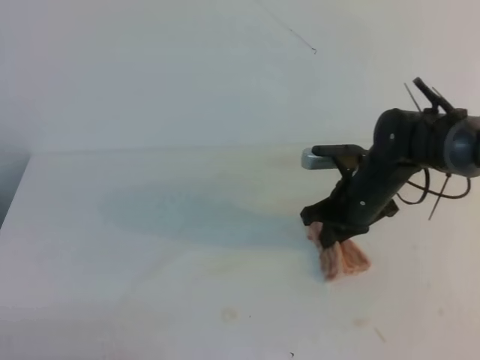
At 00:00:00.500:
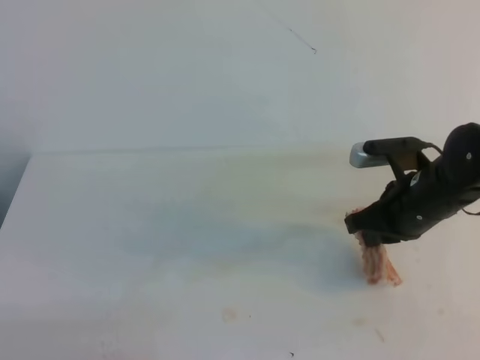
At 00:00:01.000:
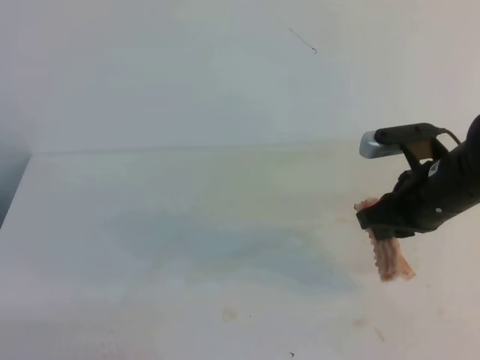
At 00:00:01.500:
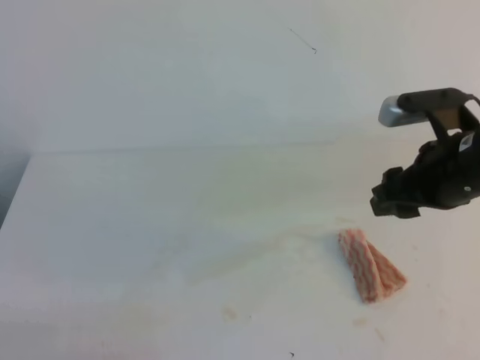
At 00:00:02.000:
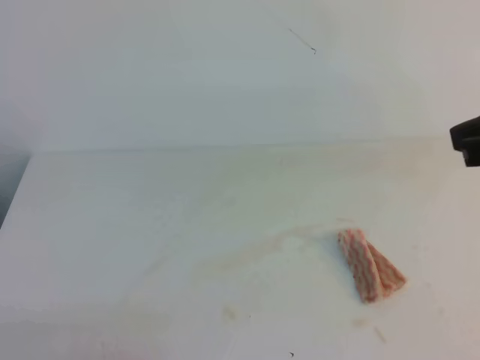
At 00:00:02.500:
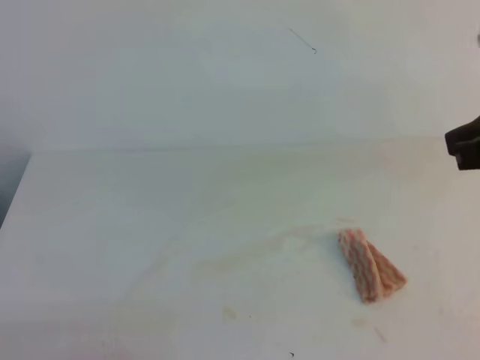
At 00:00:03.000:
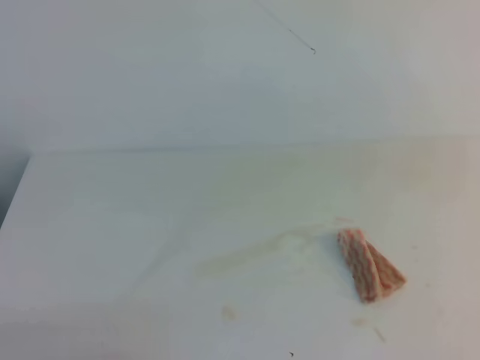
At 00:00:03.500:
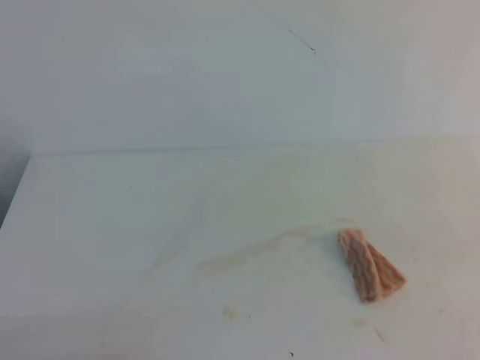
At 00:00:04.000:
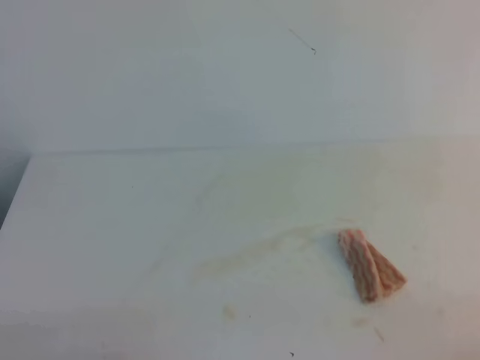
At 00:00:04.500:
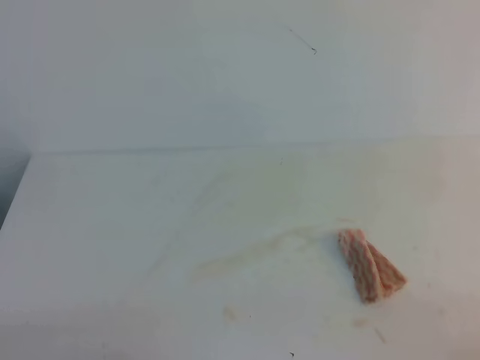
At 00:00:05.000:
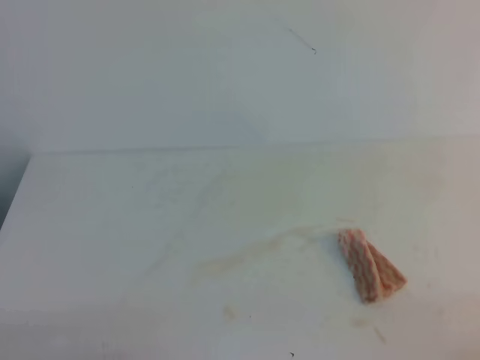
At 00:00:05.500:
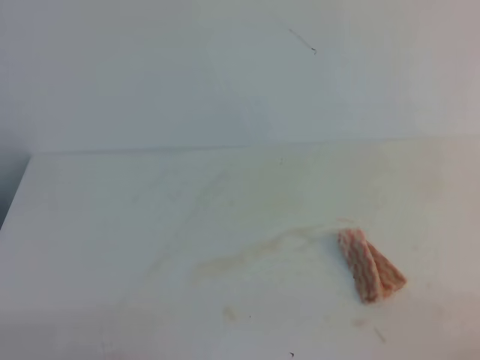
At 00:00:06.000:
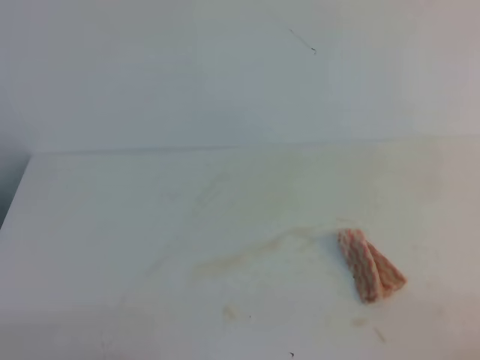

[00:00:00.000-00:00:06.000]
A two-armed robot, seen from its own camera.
00:00:00.000 to 00:00:02.000: The right gripper goes roughly 30 cm upward, backward and to the right, and opens, then closes again.
00:00:02.000 to 00:00:04.000: The right gripper heads backward, downward and to the right, covering about 25 cm.

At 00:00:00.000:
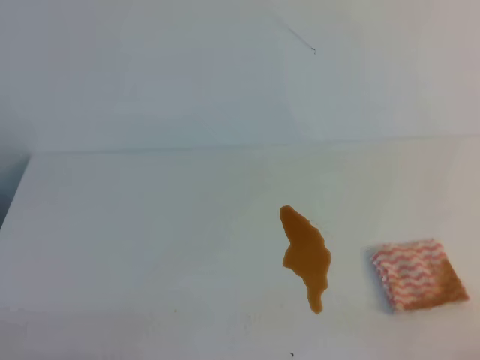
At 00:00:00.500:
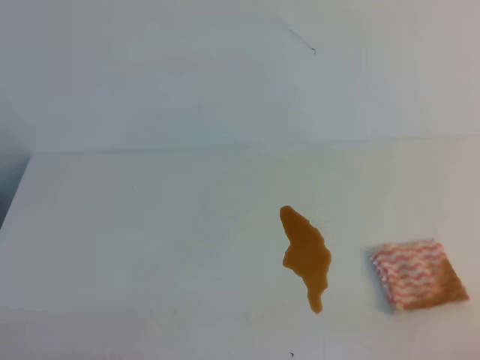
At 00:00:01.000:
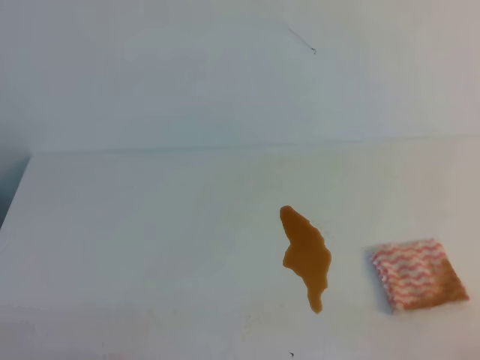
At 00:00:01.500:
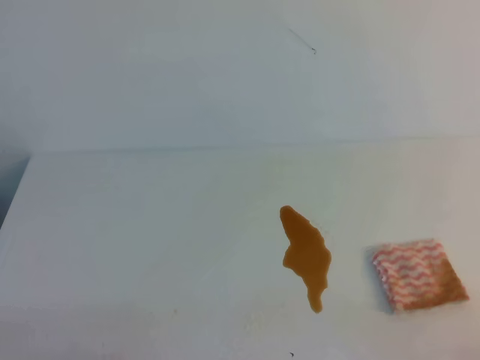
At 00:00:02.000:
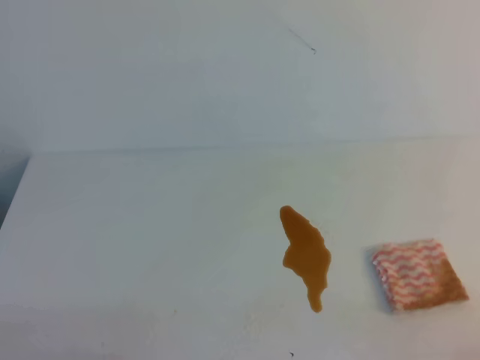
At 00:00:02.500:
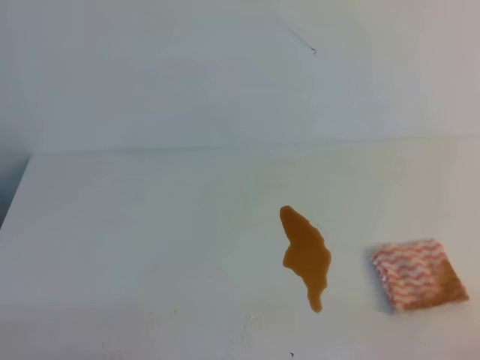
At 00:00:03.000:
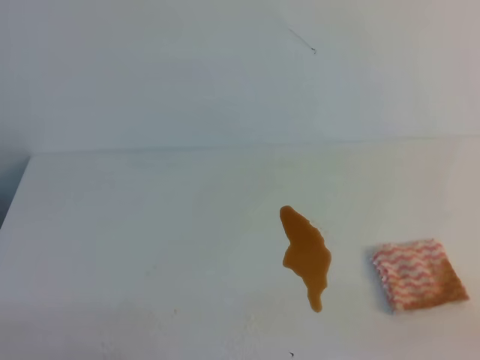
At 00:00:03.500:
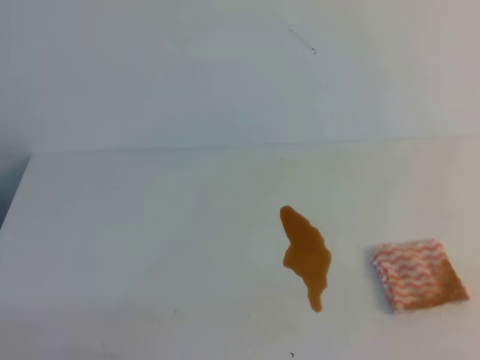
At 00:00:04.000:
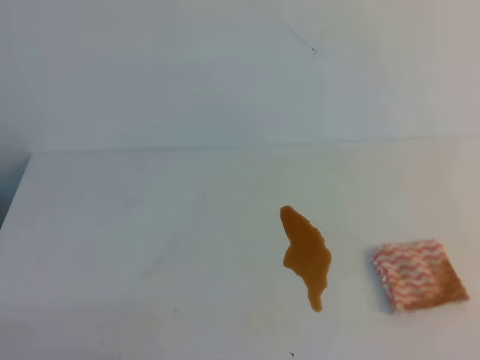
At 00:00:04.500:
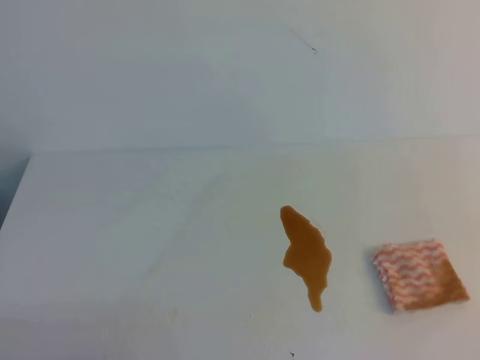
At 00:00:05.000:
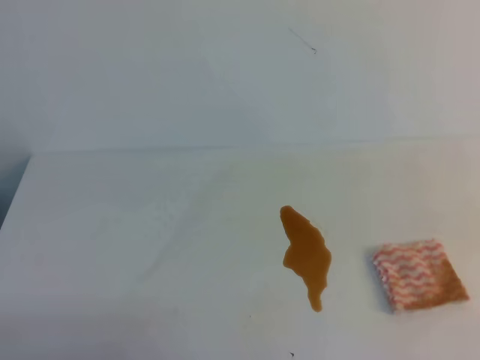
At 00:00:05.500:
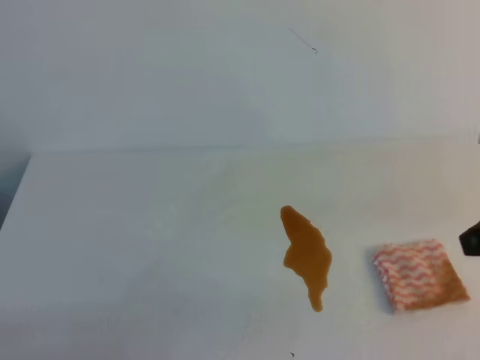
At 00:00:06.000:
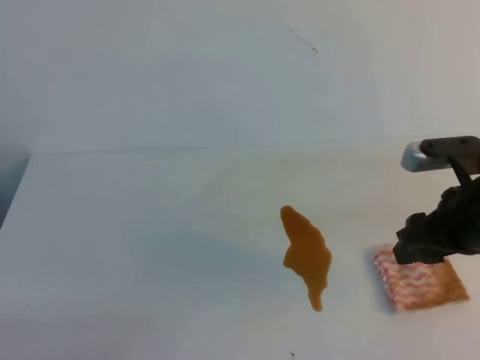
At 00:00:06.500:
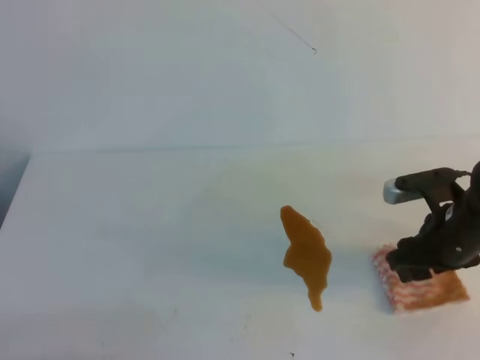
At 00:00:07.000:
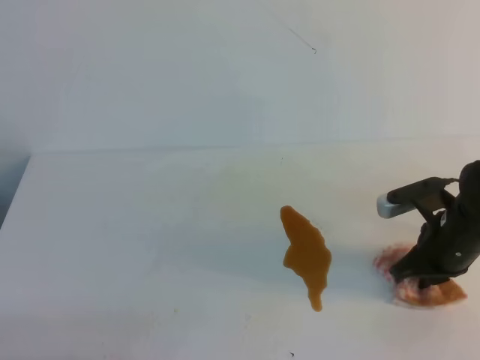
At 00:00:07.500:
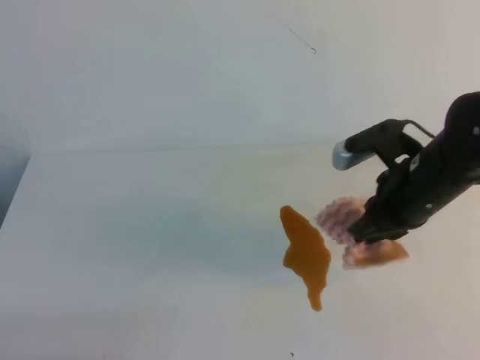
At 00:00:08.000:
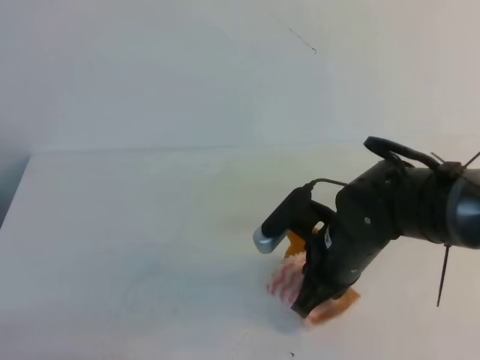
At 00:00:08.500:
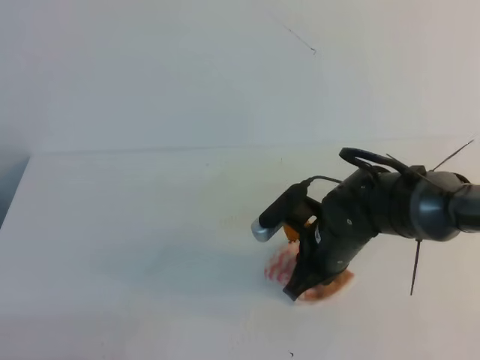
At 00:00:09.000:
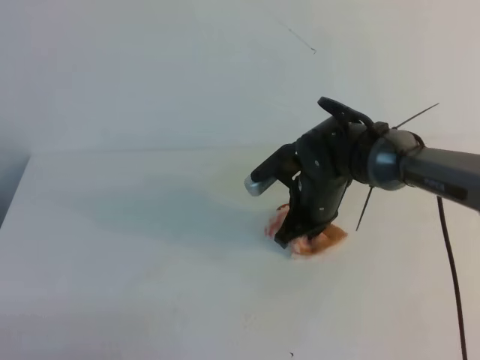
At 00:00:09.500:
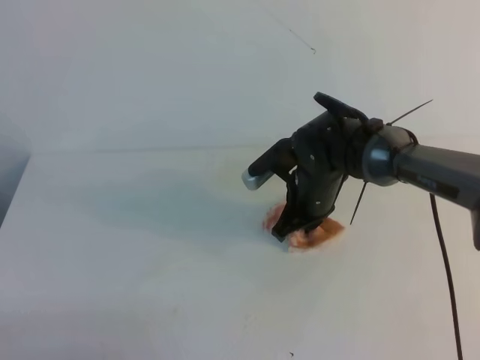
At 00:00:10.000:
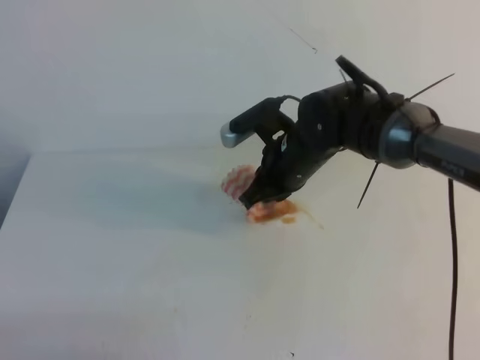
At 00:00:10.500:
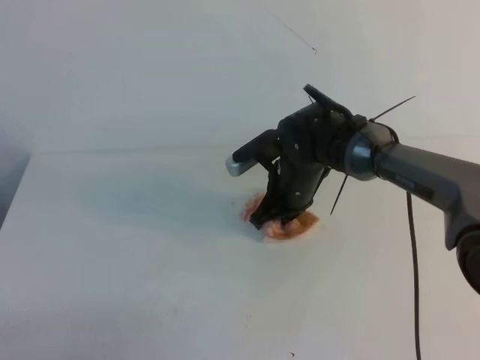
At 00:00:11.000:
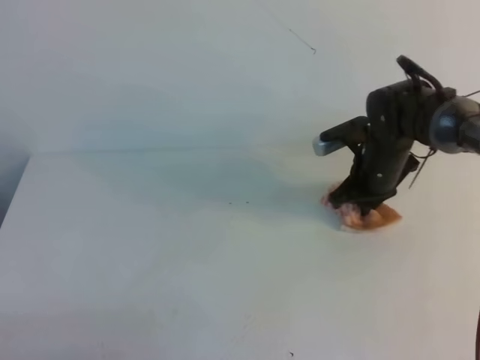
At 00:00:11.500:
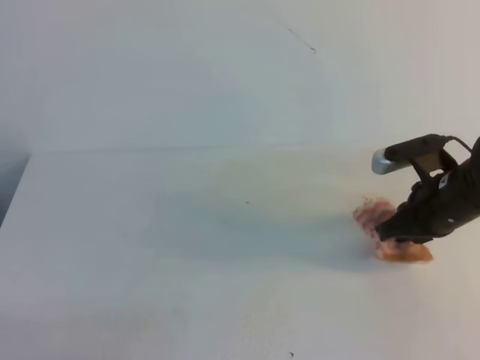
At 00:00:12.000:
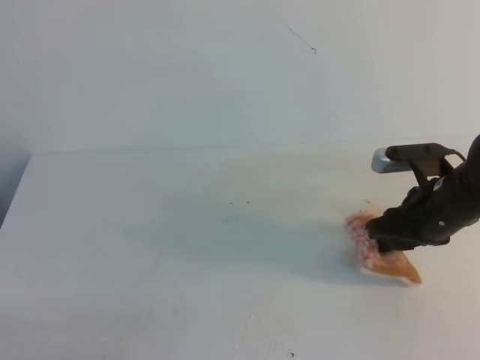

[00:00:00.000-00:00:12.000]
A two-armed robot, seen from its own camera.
00:00:00.000 to 00:00:02.000: The two grippers keep their place.
00:00:04.000 to 00:00:06.000: The right gripper is displaced forward by some 25 cm, and opens.
00:00:06.000 to 00:00:08.000: The right gripper is displaced to the left and downward by some 15 cm, and closes its fingers.
00:00:08.000 to 00:00:10.000: The right gripper moves forward, some 10 cm.
00:00:10.000 to 00:00:12.000: The right gripper moves to the right and backward, approximately 15 cm, and opens up.

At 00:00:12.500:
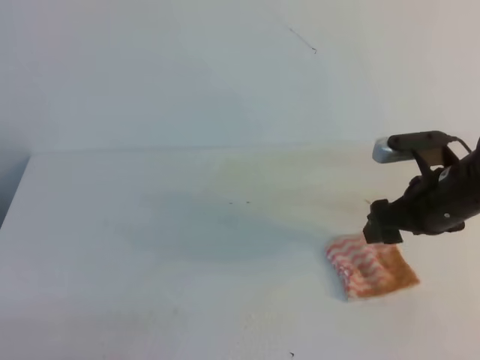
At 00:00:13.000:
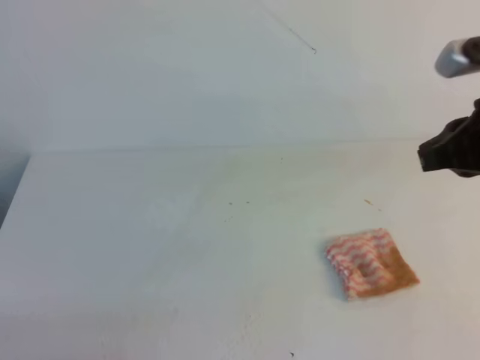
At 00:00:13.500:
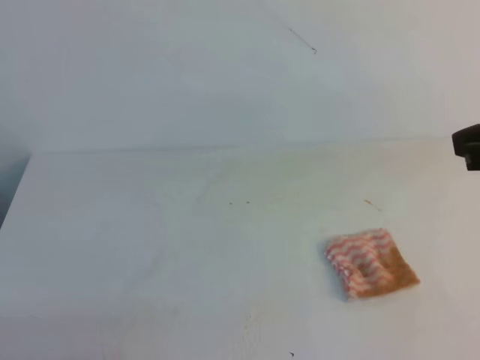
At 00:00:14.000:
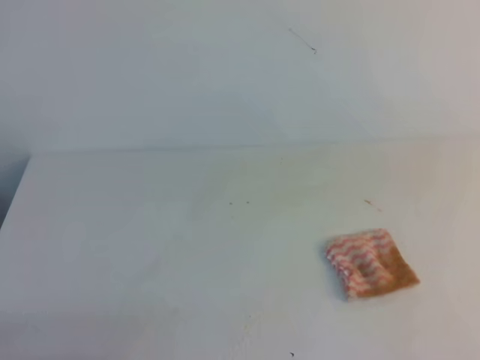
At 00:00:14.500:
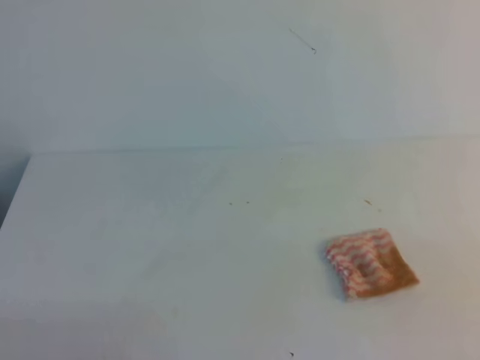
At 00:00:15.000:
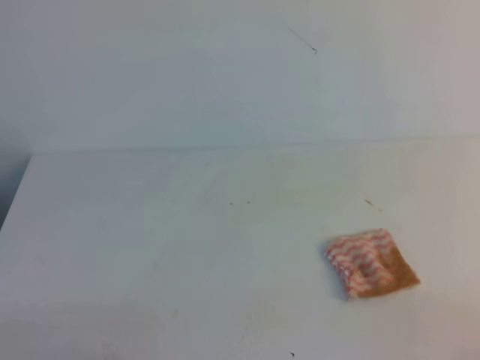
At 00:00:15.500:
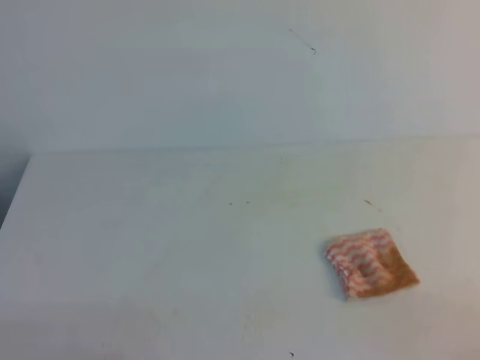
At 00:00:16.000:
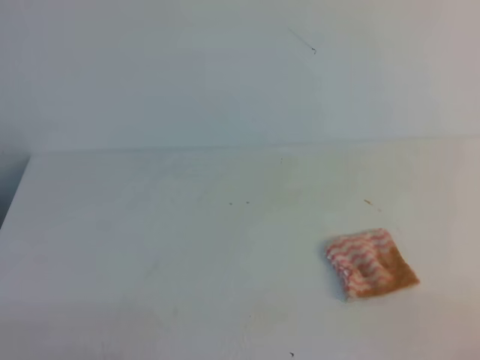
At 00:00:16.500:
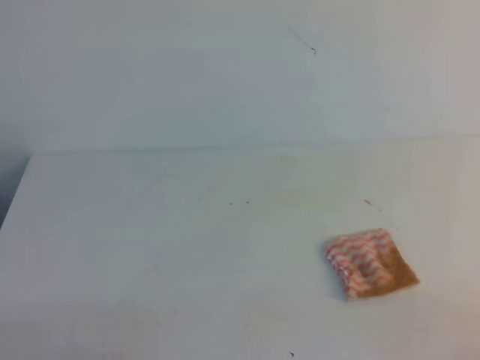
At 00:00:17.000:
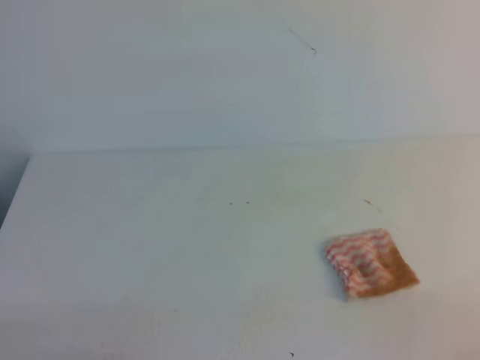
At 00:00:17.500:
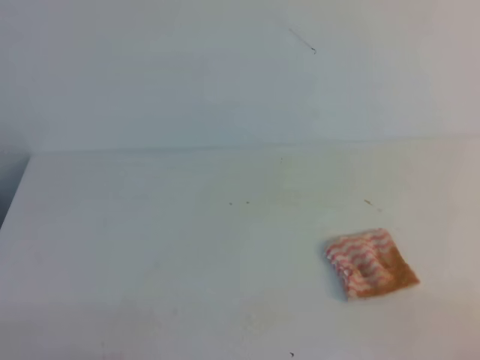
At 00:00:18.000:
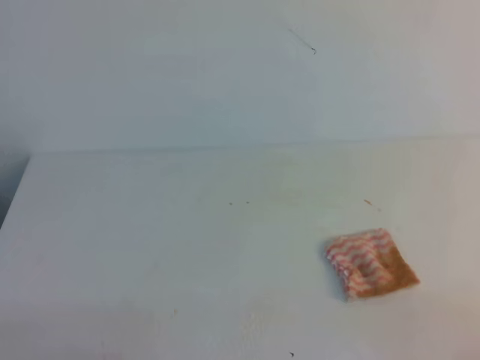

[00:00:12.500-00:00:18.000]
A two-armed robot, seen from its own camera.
00:00:12.500 to 00:00:14.500: The right gripper travels backward by roughly 25 cm, and closes its fingers.
00:00:16.000 to 00:00:18.000: Both grippers stay put.
